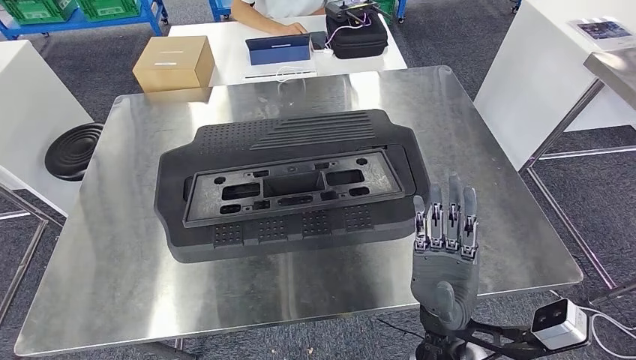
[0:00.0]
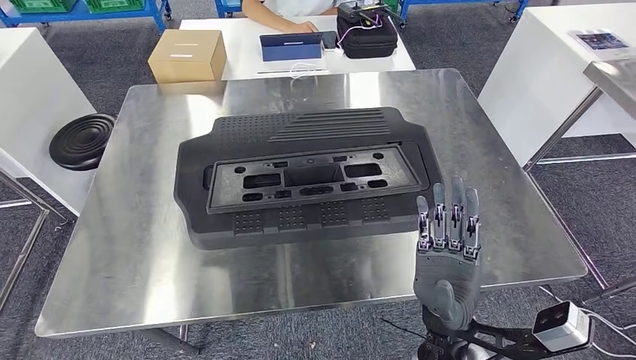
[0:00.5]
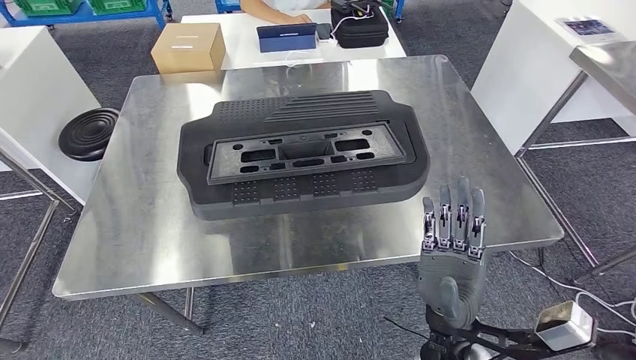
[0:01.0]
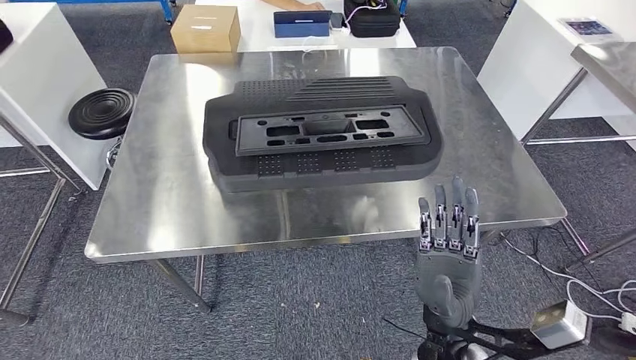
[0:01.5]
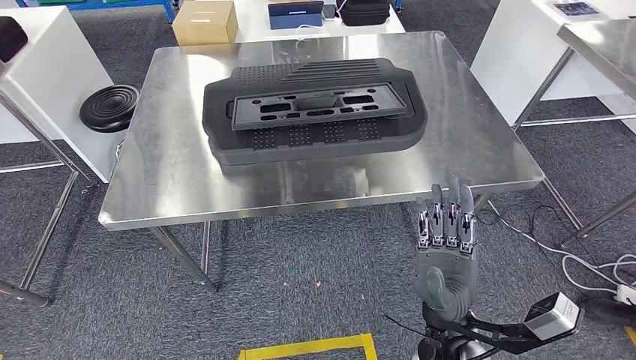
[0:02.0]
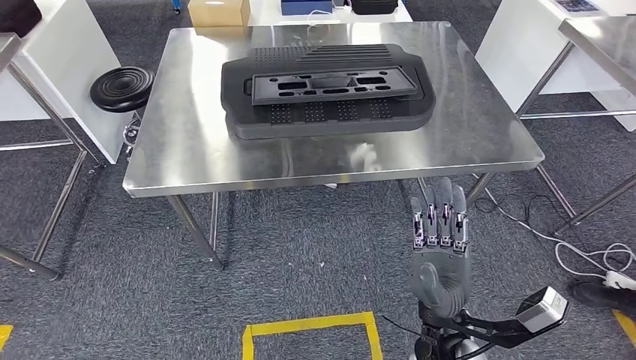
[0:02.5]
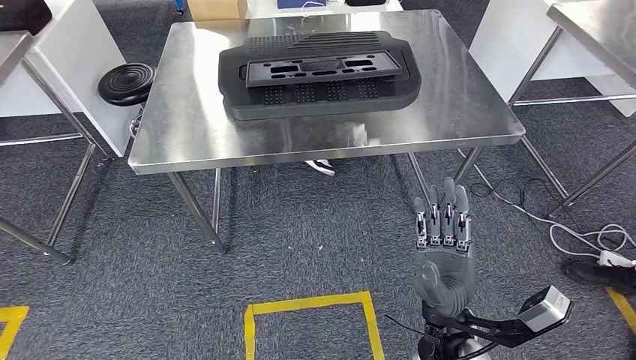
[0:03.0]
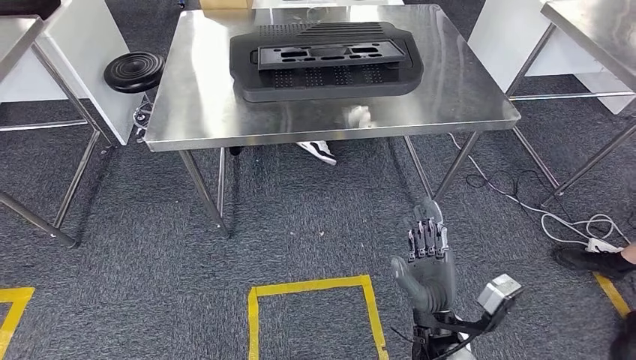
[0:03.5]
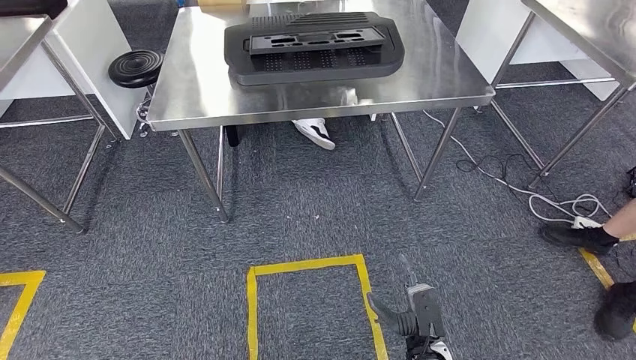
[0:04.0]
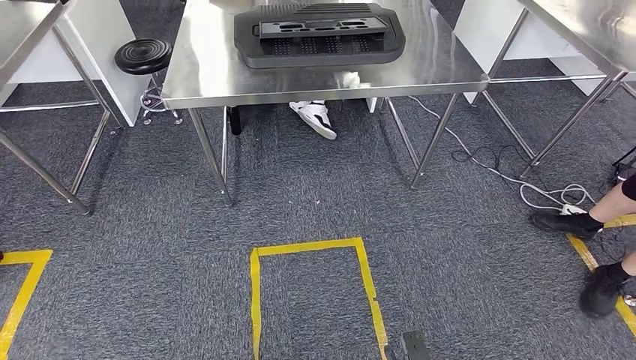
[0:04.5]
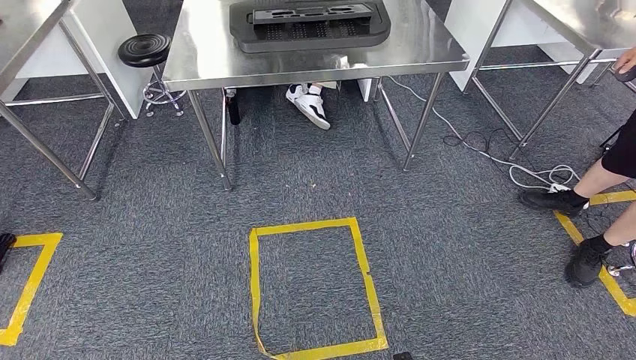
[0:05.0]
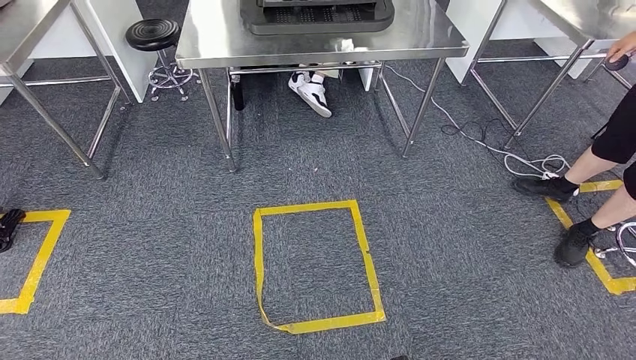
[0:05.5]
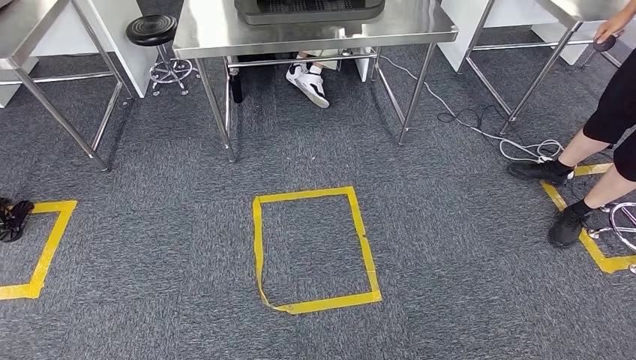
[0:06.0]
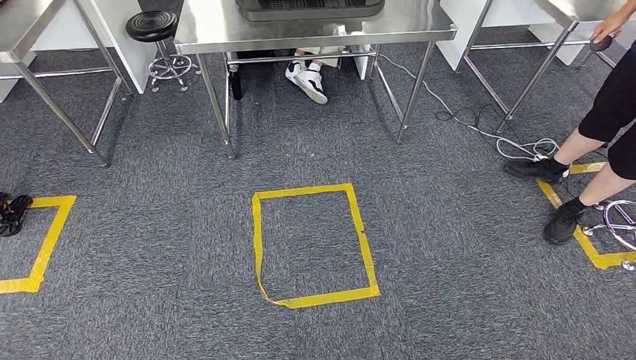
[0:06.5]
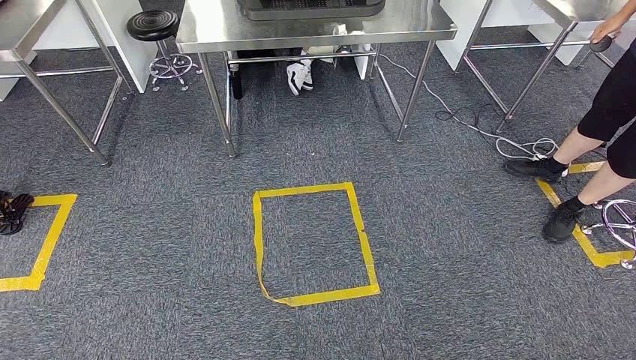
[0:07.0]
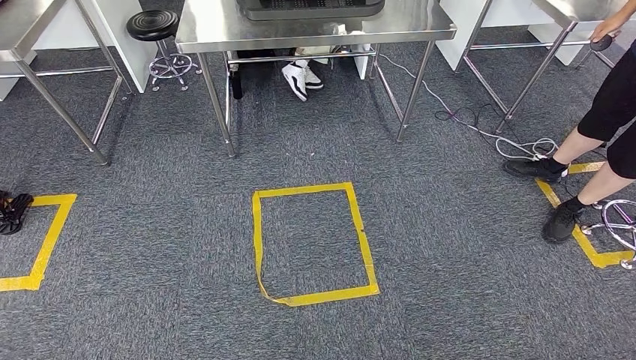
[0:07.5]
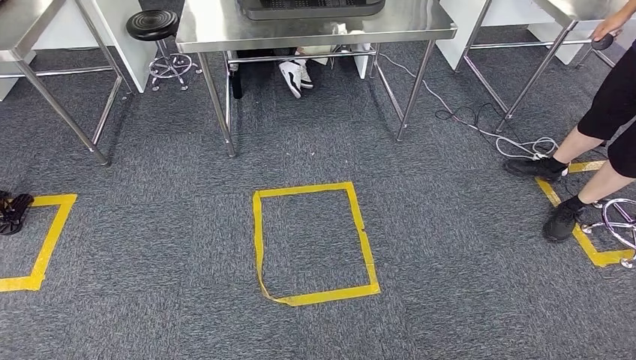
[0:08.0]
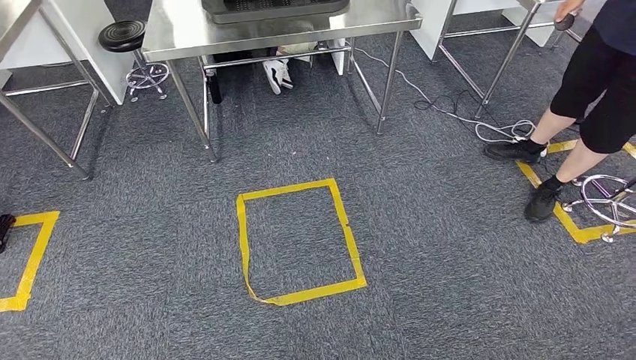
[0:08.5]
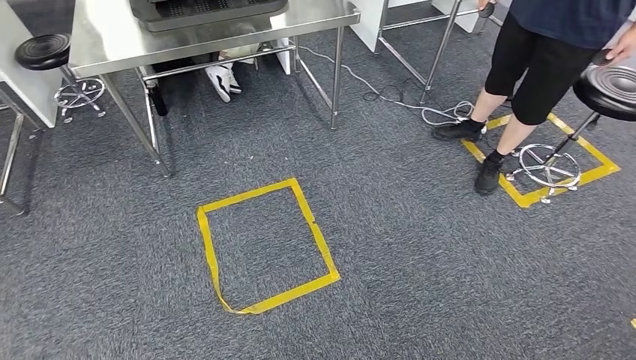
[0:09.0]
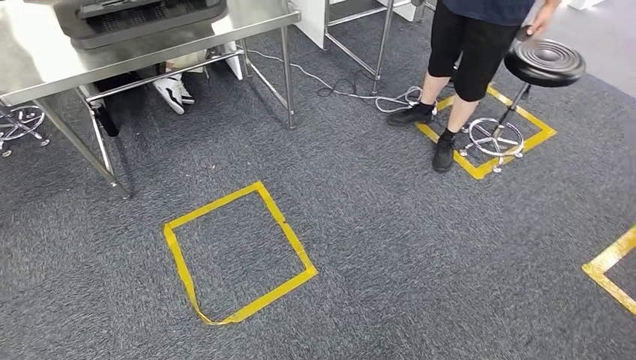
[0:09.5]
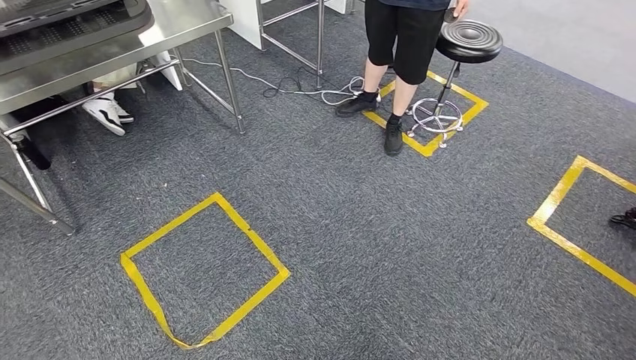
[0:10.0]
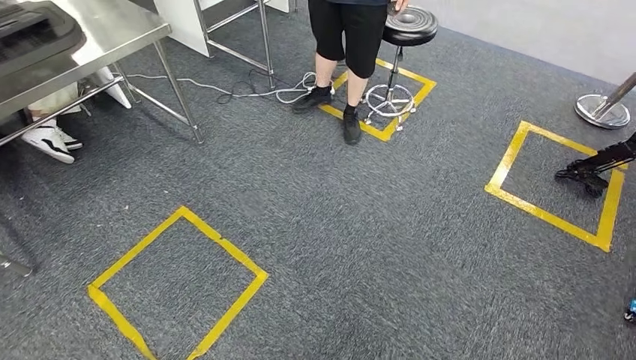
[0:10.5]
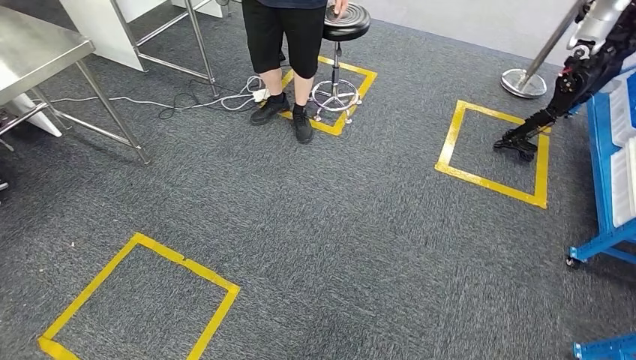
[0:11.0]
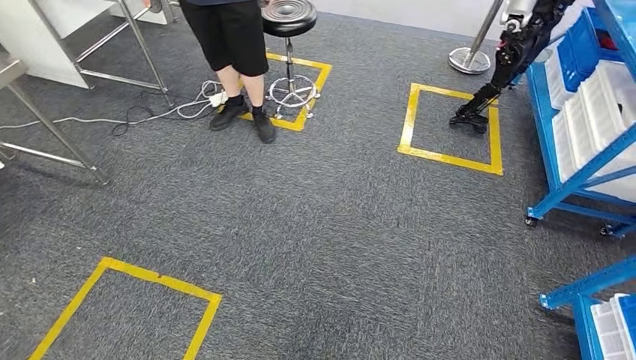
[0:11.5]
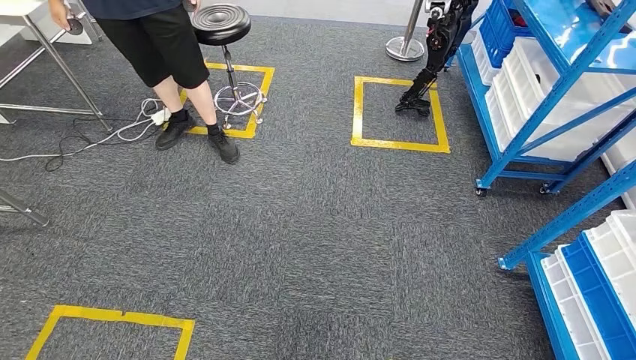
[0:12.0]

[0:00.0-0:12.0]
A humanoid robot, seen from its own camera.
0:06.0 to 0:08.0: Both hands stay about where they are.

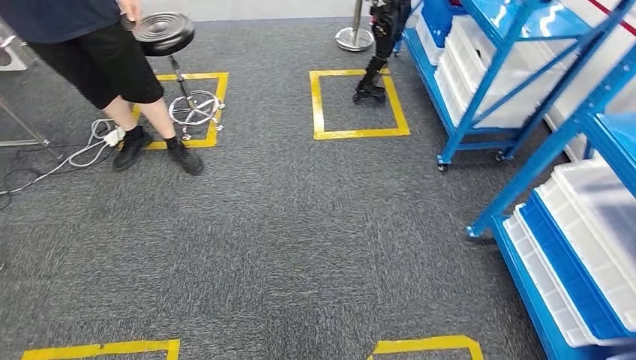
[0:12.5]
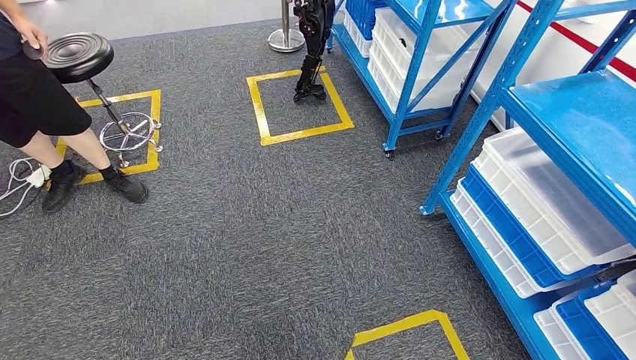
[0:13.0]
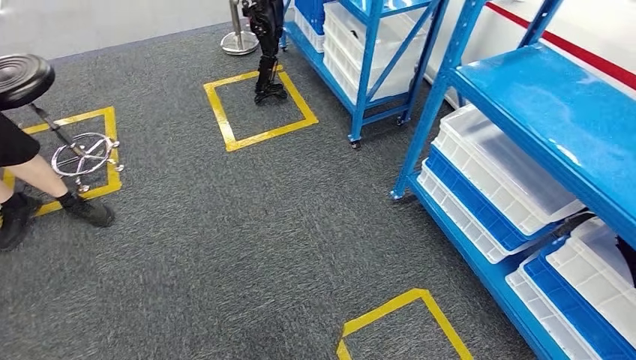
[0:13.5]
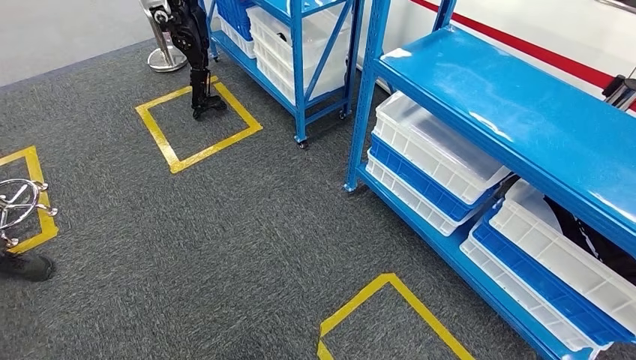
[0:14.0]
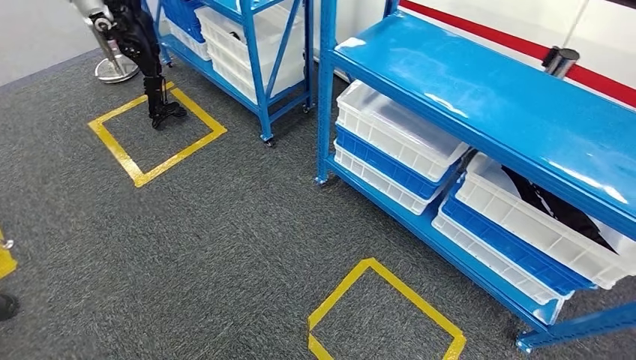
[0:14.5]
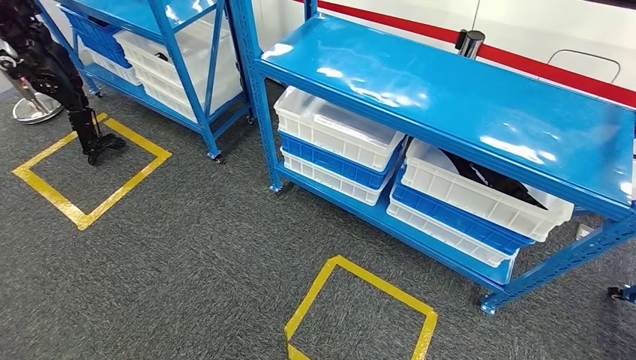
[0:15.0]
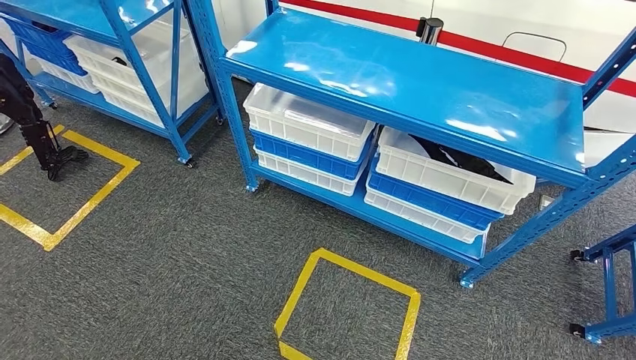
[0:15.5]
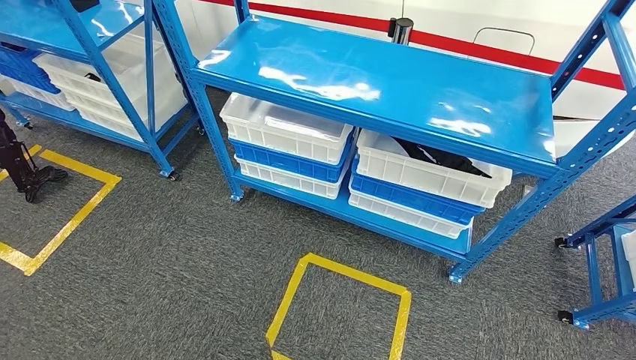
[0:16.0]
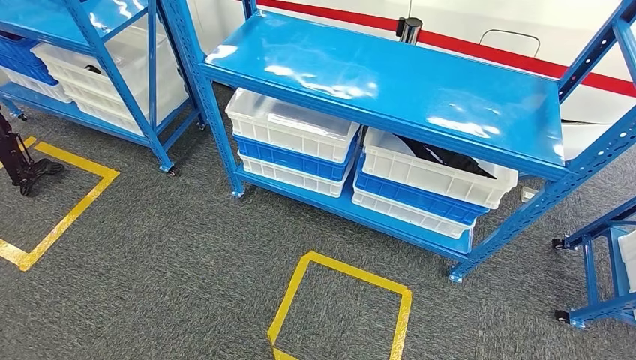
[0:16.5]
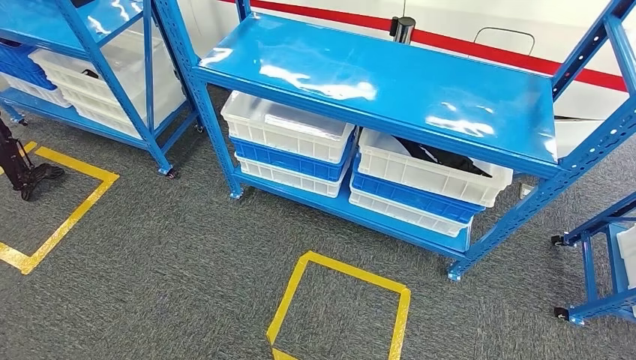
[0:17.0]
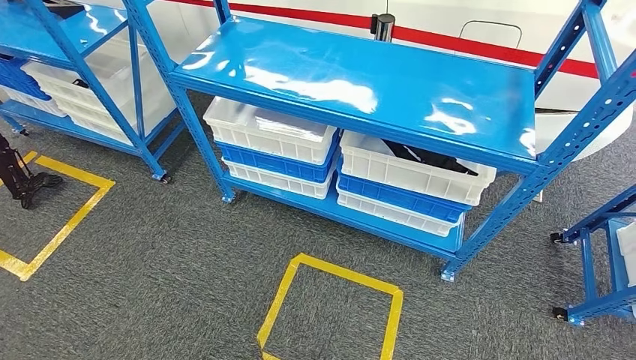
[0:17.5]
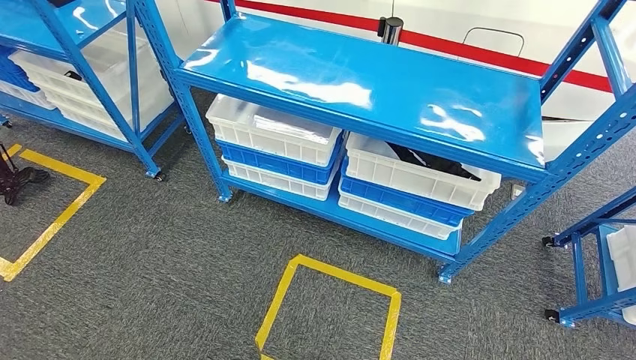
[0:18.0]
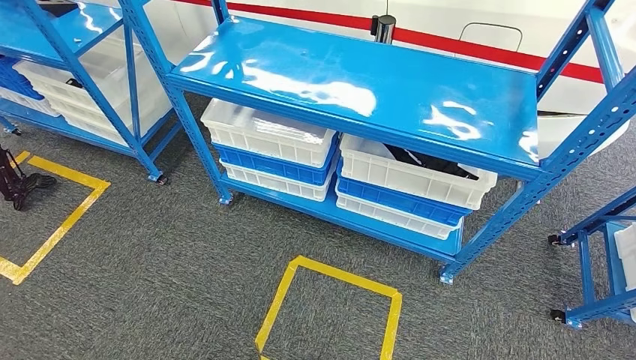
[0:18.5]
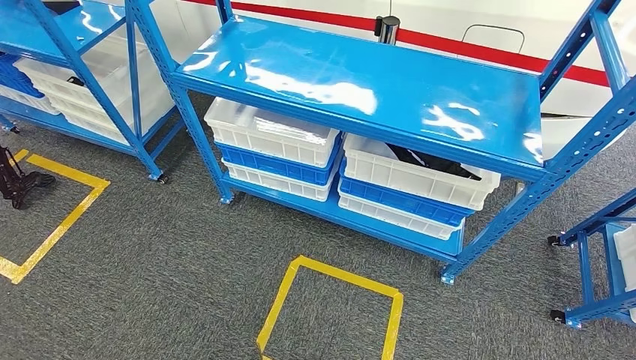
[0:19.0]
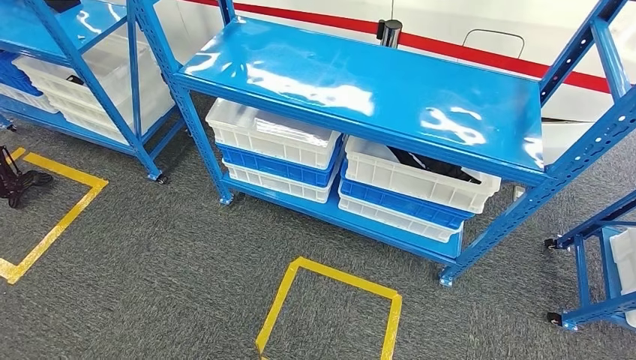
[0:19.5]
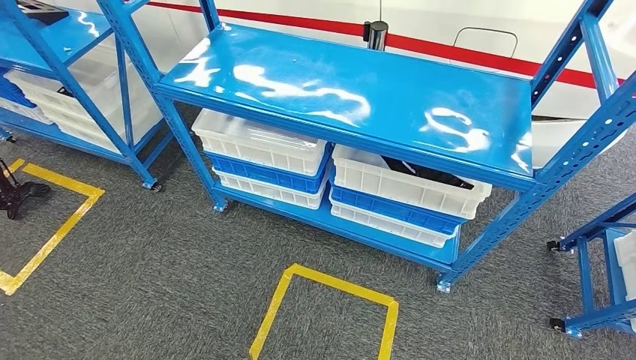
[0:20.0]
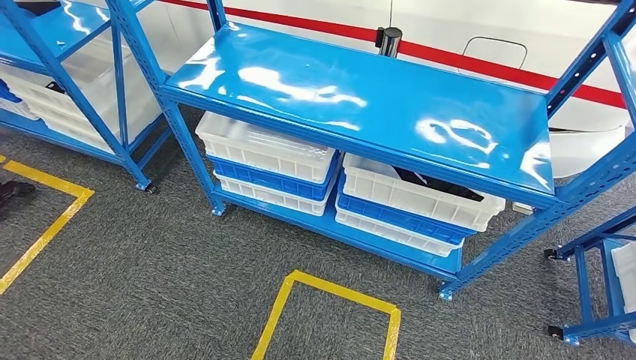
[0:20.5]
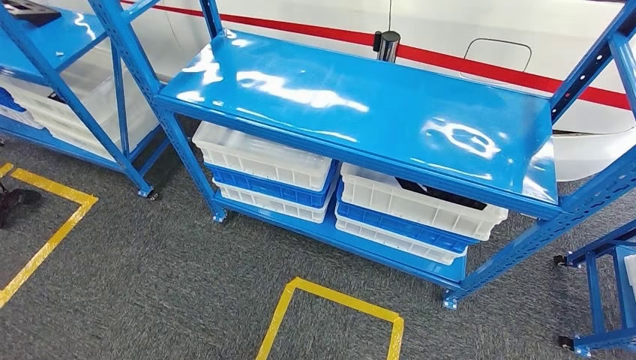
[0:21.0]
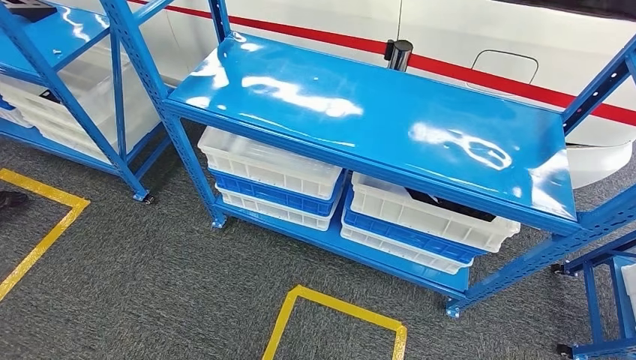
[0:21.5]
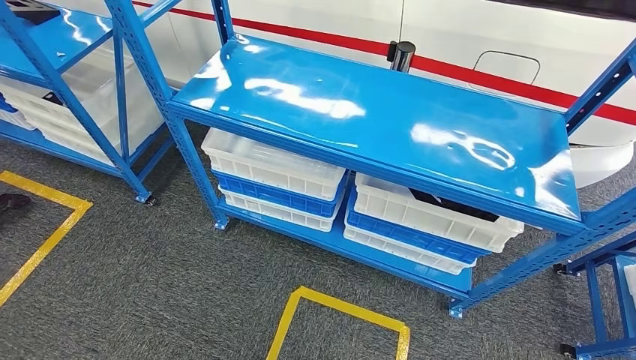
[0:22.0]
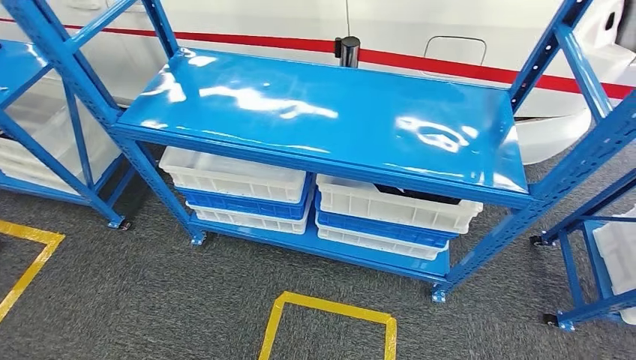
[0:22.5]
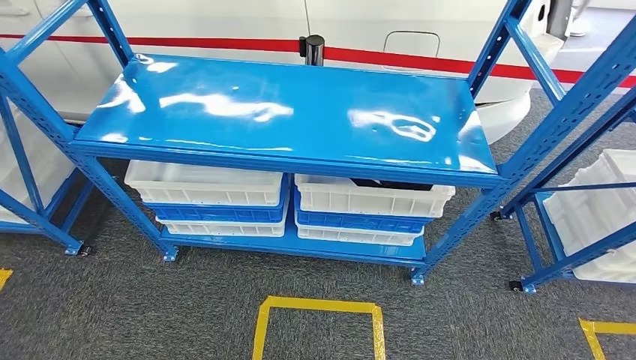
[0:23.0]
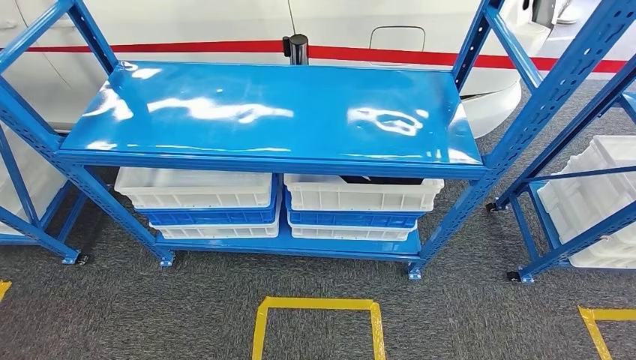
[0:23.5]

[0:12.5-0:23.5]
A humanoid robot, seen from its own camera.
Step, 0:12.5 to 0:23.5: Return to the initial position at the shelf.
